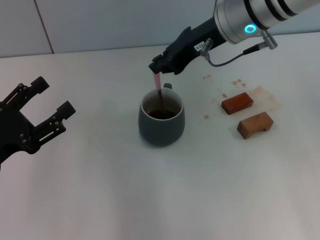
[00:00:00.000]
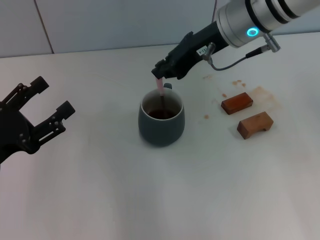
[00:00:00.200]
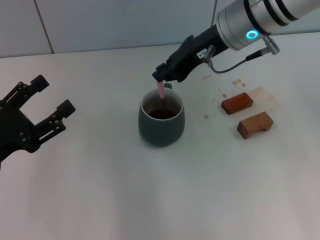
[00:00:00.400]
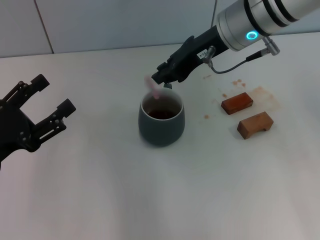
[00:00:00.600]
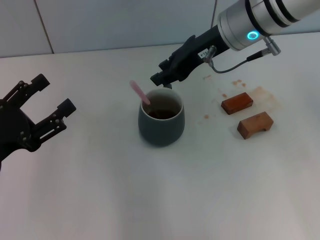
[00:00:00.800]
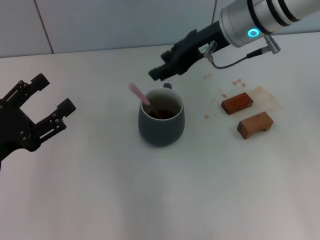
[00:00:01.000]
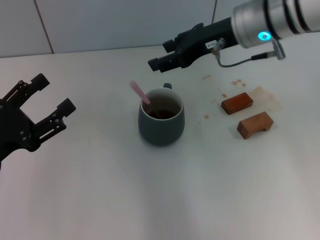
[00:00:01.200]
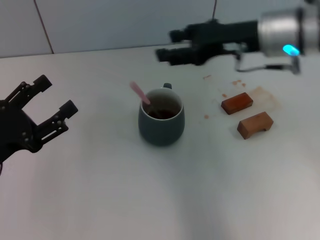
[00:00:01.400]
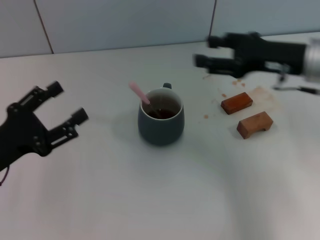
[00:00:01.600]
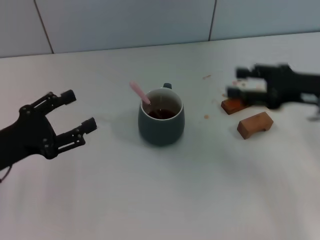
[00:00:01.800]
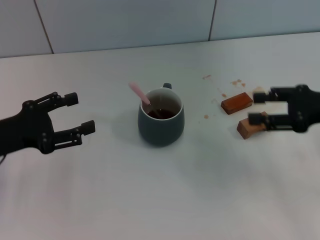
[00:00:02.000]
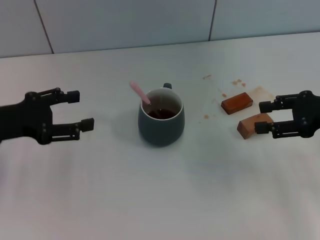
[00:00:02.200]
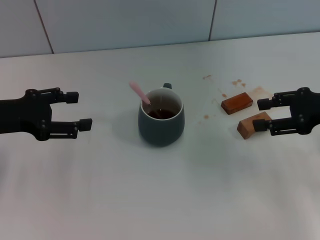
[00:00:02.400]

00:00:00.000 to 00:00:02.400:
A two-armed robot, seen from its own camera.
Task of the whole recording: Move the grey cup to the center, lift the pink spoon, stir it three times in the cup, and put the spoon into the cup.
00:00:00.000 to 00:00:01.200: The right gripper opens.
00:00:01.200 to 00:00:02.400: The right gripper heads to the right, backward and downward, covering about 20 cm. Meanwhile the left gripper goes about 10 cm forward and upward.
